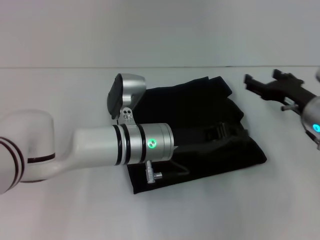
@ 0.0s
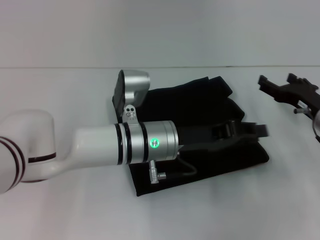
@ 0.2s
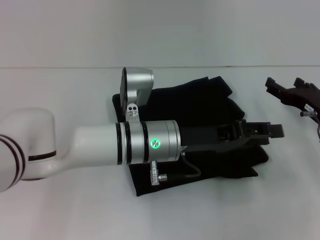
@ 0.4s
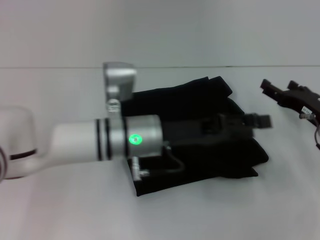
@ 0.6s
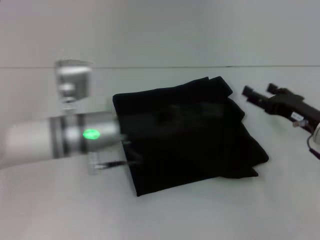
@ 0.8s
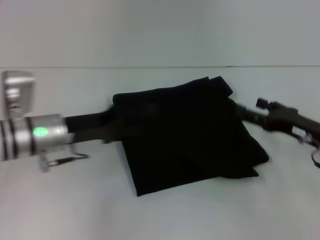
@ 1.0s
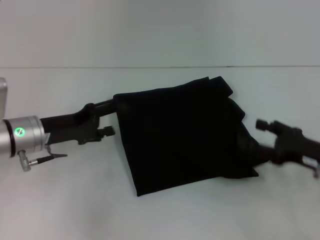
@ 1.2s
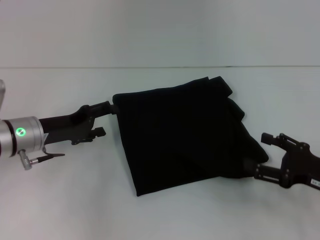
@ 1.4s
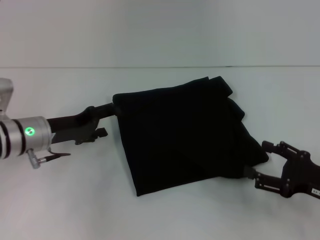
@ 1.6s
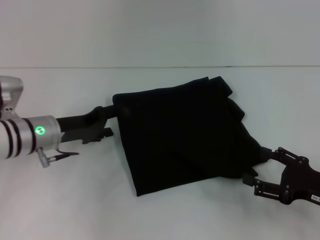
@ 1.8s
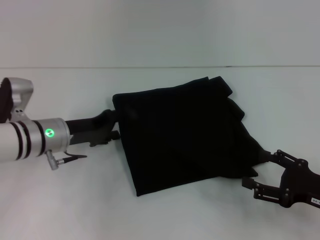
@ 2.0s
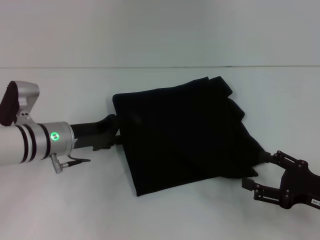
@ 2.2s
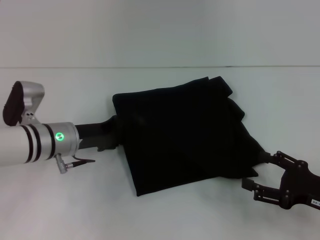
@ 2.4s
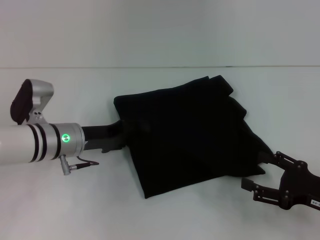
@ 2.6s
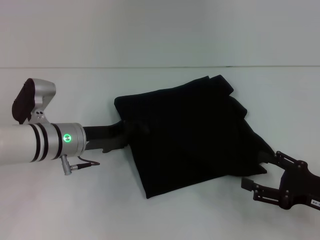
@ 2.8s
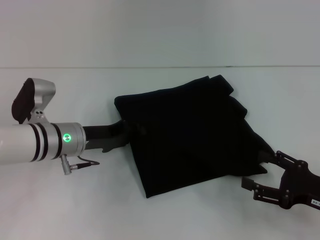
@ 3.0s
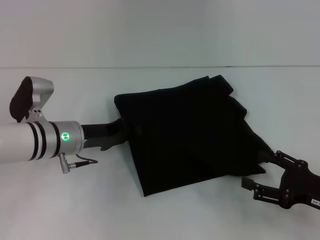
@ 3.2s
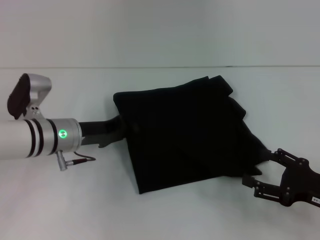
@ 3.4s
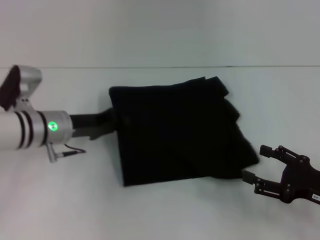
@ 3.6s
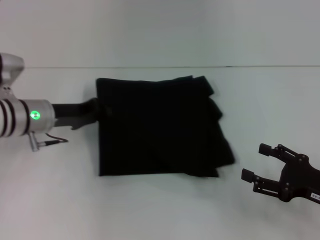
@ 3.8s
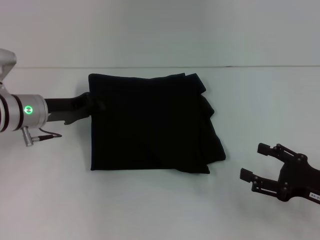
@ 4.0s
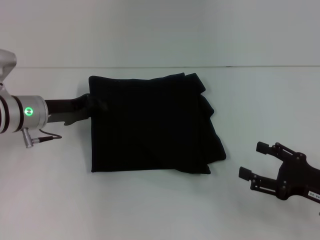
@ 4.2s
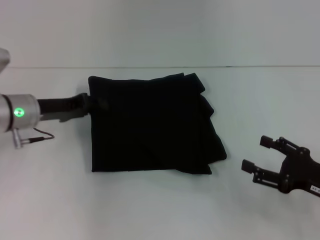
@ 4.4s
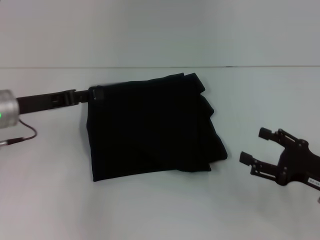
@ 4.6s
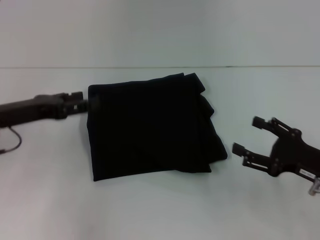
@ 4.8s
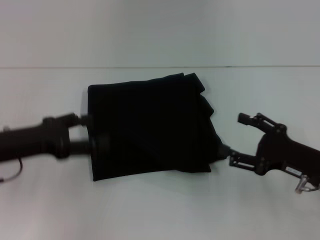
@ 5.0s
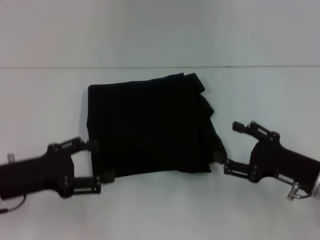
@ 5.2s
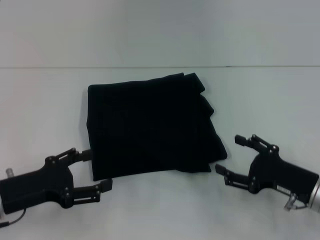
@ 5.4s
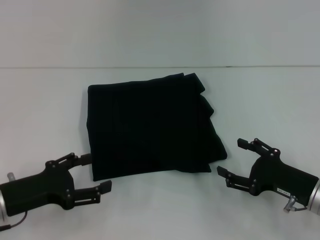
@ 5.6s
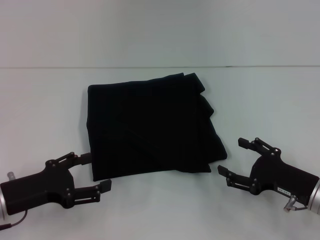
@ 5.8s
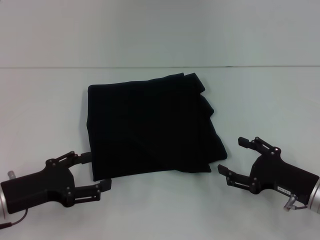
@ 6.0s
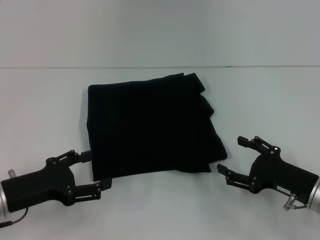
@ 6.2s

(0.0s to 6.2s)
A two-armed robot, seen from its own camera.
0.0s - 1.6s: The left gripper is displaced to the left by about 20 cm, and opens its fingers, while the right gripper shifts roughly 15 cm backward.
1.6s - 3.2s: The left gripper closes up.
3.2s - 4.6s: The left gripper moves to the left and upward, some 10 cm.
4.6s - 6.2s: The left gripper moves backward and downward, some 15 cm, and opens.

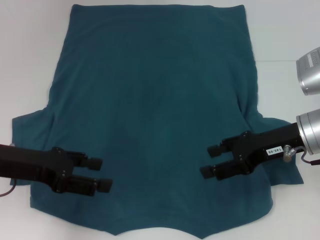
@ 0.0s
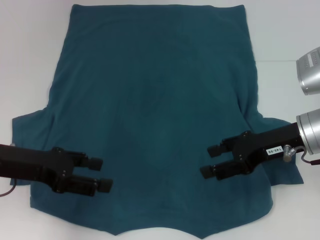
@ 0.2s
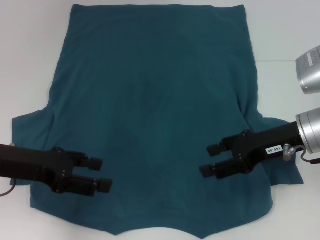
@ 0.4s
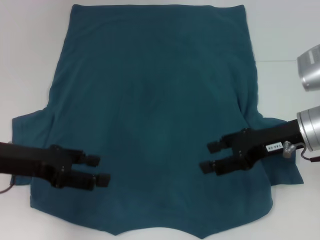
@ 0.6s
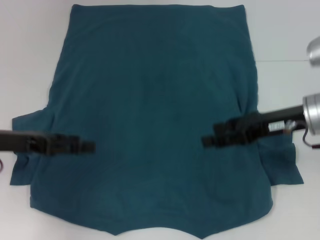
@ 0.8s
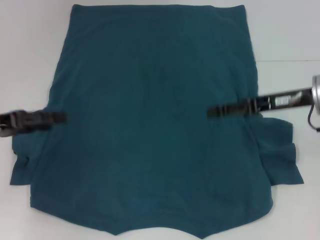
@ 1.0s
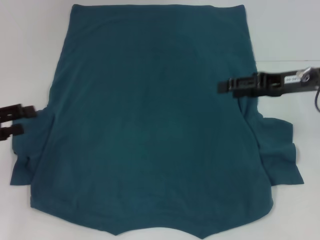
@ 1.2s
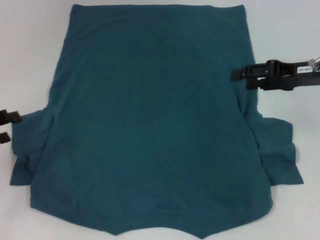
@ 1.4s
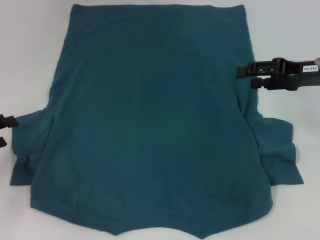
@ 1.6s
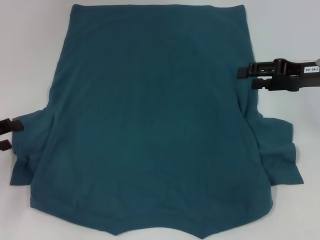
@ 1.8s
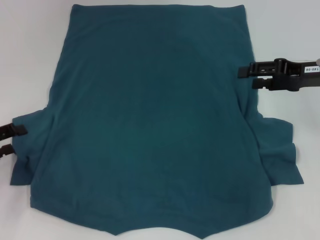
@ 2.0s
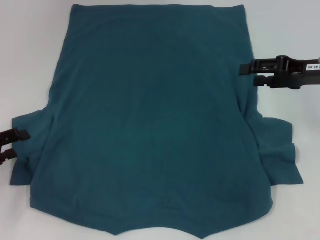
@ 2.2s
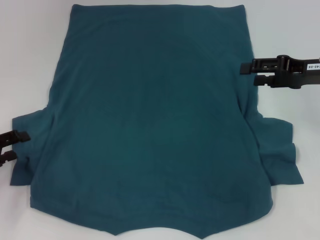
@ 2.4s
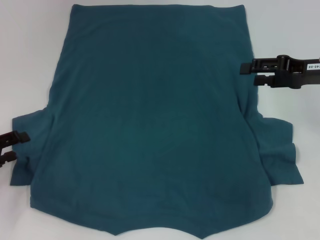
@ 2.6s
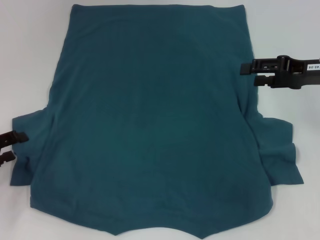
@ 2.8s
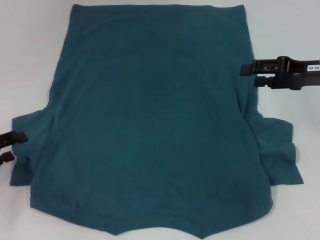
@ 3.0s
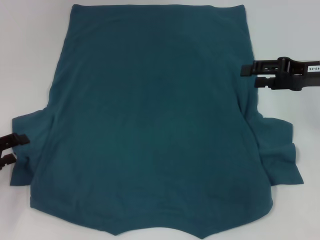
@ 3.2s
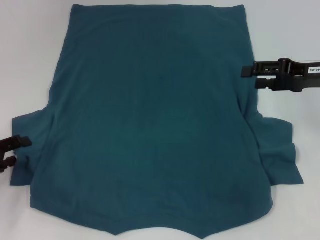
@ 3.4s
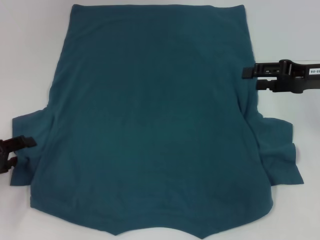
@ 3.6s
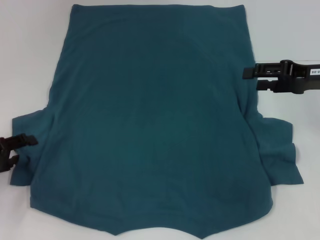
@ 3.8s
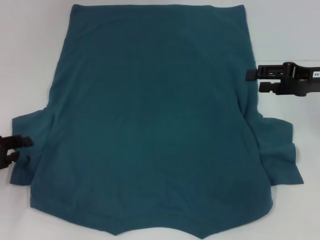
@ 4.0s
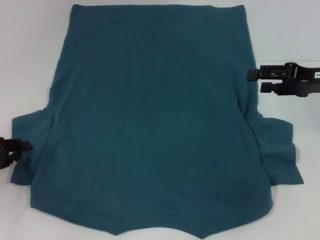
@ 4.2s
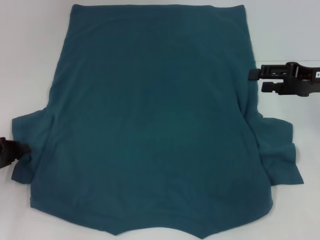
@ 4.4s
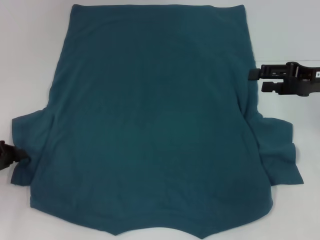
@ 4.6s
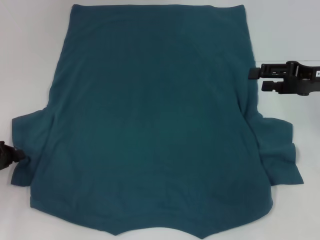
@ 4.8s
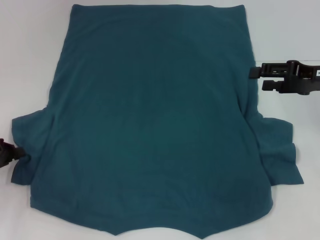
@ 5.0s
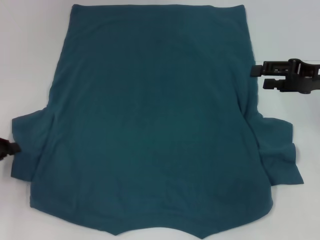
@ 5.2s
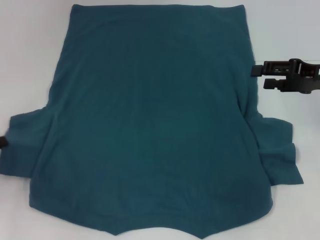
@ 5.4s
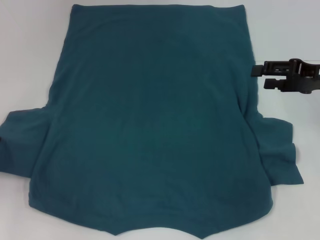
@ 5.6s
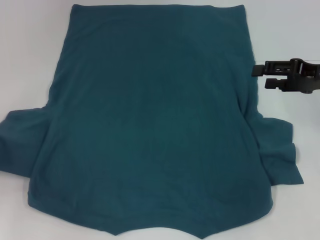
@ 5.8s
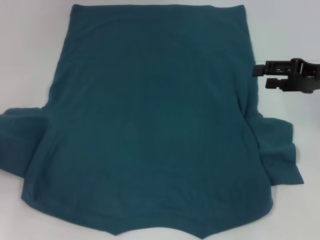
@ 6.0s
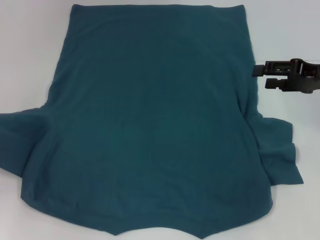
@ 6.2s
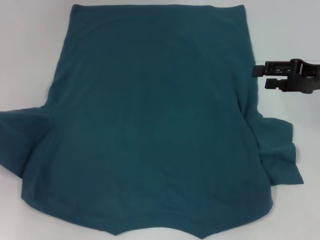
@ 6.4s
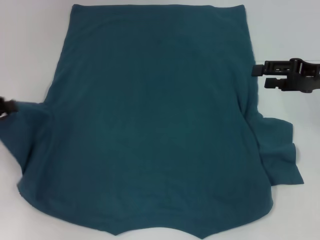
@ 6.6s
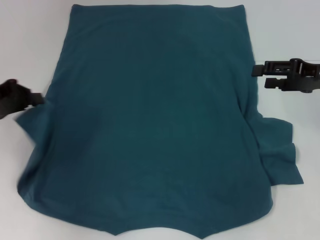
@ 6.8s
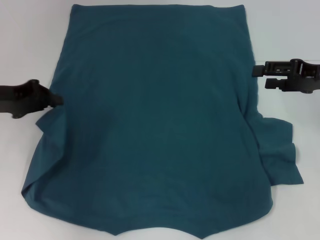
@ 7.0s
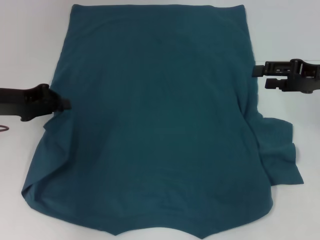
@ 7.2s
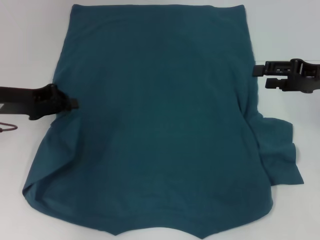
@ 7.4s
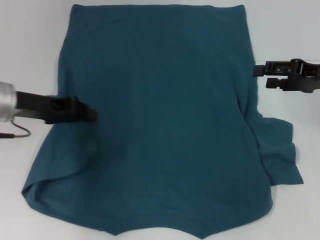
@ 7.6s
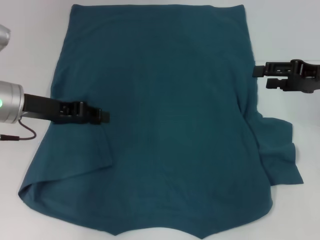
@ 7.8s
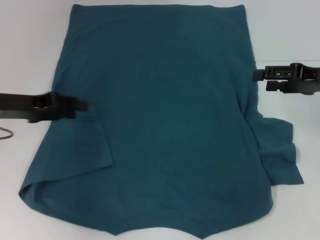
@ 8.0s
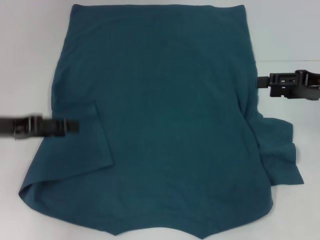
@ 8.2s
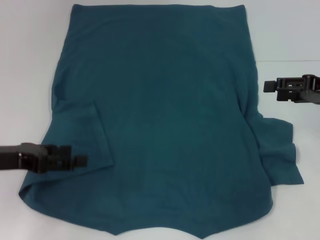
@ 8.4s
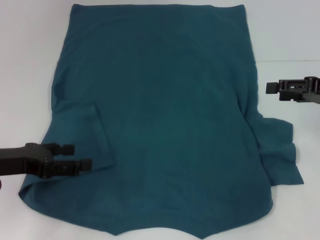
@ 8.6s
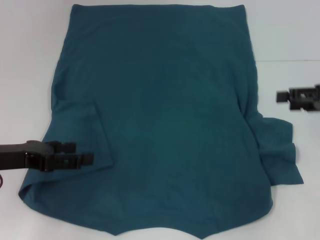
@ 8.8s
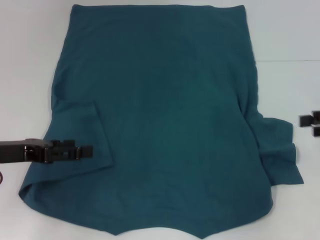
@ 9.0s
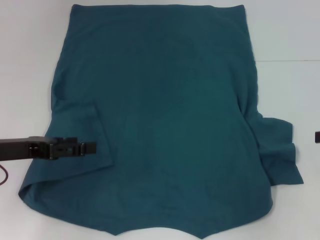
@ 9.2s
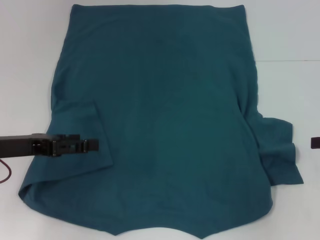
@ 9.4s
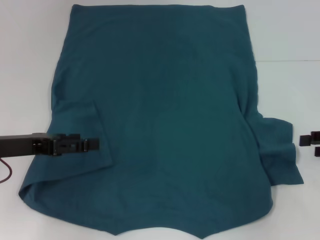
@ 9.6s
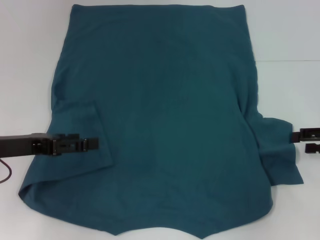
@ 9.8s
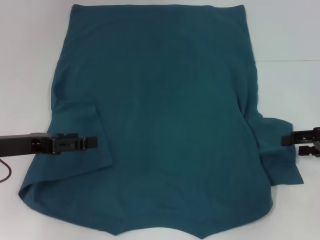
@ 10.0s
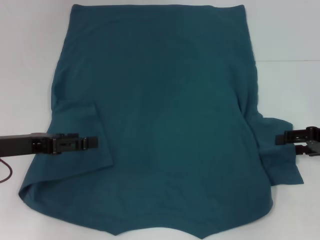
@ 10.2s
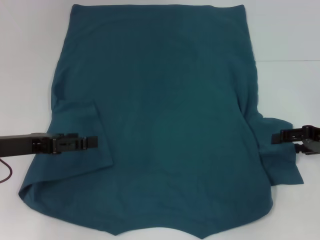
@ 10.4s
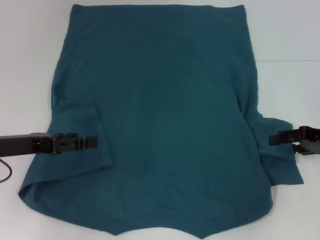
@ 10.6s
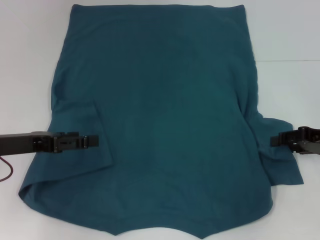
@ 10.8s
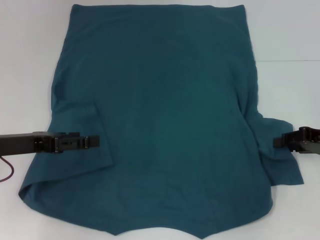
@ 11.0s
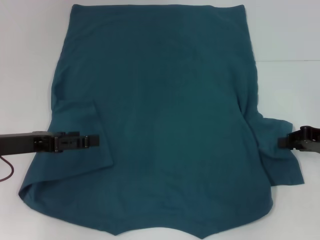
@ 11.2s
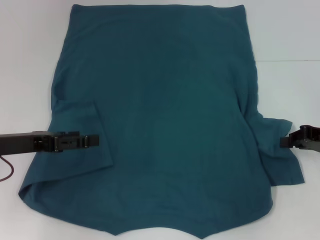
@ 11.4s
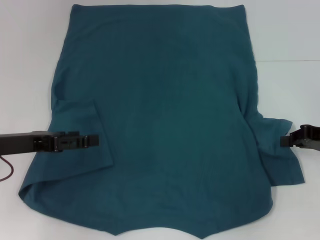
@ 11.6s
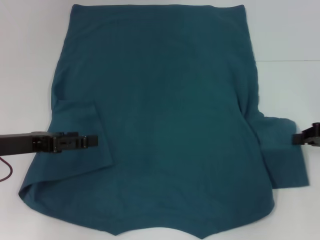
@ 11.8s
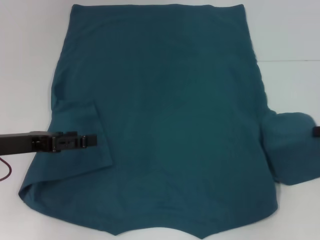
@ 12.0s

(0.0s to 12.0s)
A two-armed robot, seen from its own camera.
Step, 0.0s - 8.0s: Fold the bottom left sleeve with your left hand.
0.0s - 1.6s: The right gripper shifts about 10 cm to the right and forward, while the left gripper is displaced to the left by some 10 cm.
1.6s - 3.0s: The grippers stay close to where they were, moving slightly.
3.0s - 4.4s: The left gripper closes its fingers.
4.4s - 6.0s: The left gripper shifts roughly 5 cm upward, and closes its fingers.
6.0s - 7.6s: The left gripper heads to the right and forward, covering about 15 cm.
7.6s - 9.0s: The left gripper travels backward by some 10 cm, and opens up. The right gripper goes approximately 10 cm to the right and backward.
9.0s - 10.4s: The right gripper shifts some 5 cm downward.
10.4s - 12.0s: The right gripper closes its fingers.

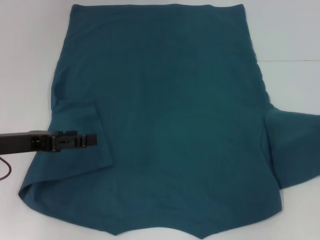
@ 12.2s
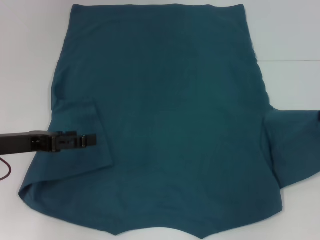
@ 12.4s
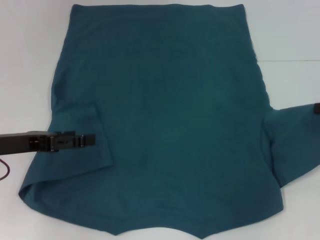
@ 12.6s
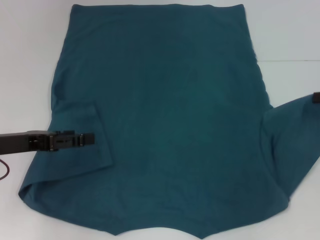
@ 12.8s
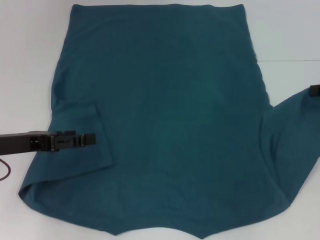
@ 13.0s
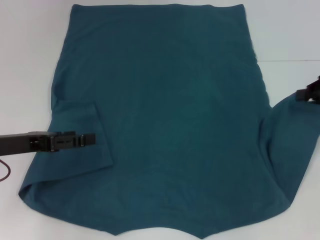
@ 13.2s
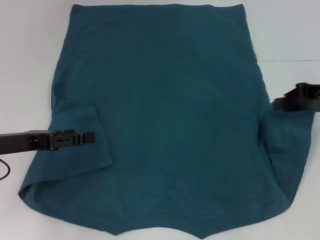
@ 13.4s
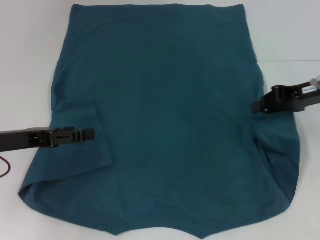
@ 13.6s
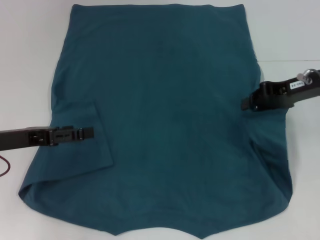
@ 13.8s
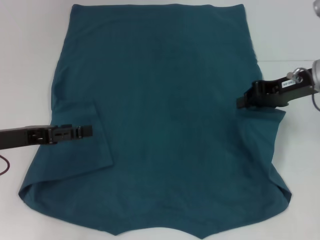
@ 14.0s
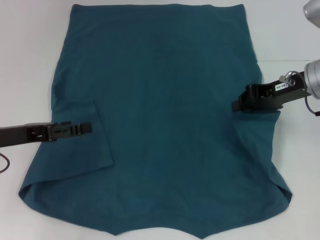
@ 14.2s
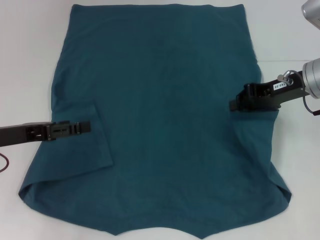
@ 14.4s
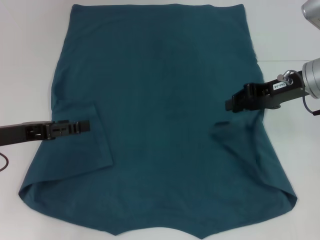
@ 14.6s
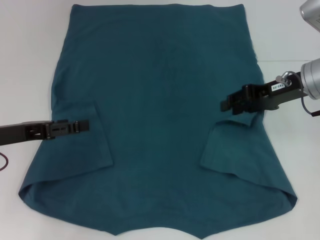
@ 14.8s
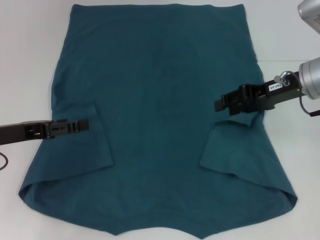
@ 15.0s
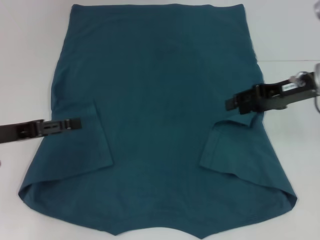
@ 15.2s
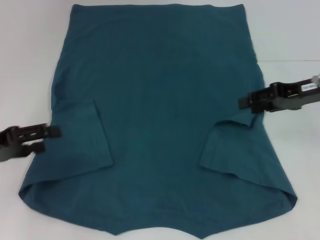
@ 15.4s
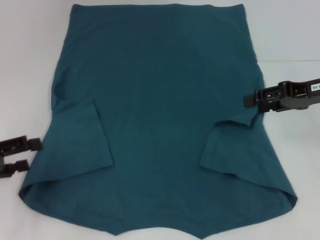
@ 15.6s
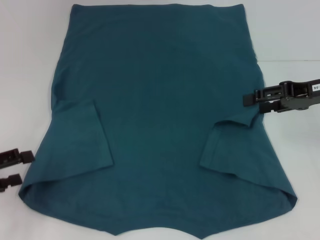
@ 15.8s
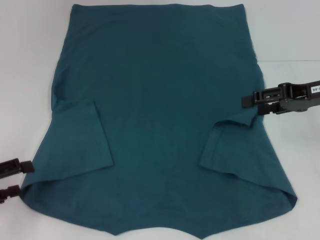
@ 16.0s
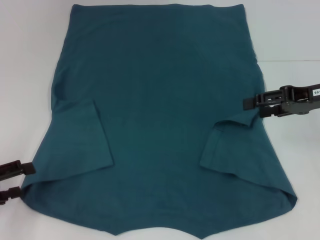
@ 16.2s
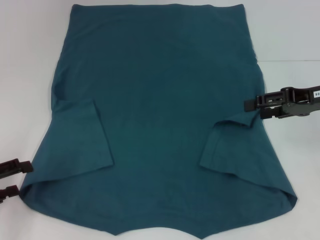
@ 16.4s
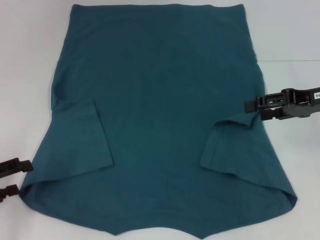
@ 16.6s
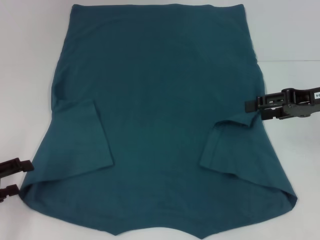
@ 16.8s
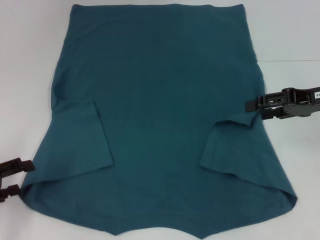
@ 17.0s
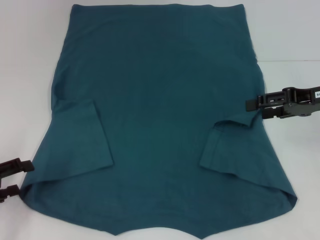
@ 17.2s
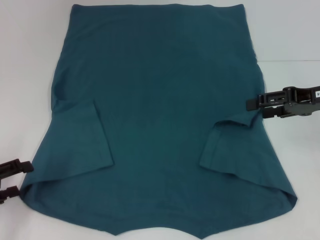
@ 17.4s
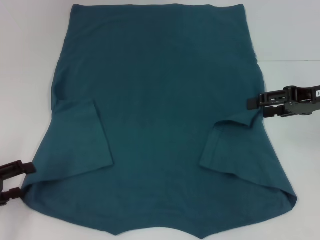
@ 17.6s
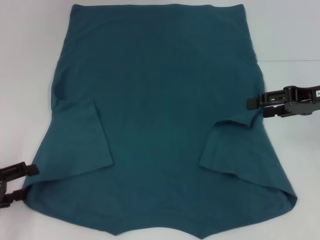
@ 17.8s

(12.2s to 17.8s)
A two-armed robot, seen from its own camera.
Step, 12.2s - 14.8s: Fold the bottom right sleeve to the right.
12.2s - 13.6s: The right gripper goes approximately 10 cm to the left and forward.
13.6s - 15.0s: The right gripper opens its fingers.
15.0s - 16.4s: The left gripper moves backward and to the left, roughly 10 cm. Meanwhile the right gripper moves to the right, roughly 5 cm, and opens.
16.4s - 17.8s: The grippers move only a little.
